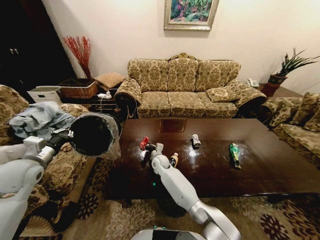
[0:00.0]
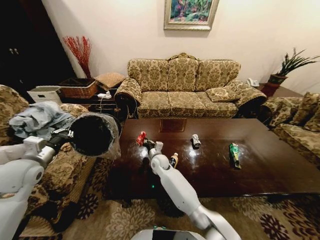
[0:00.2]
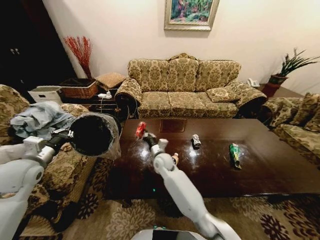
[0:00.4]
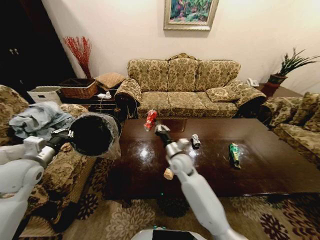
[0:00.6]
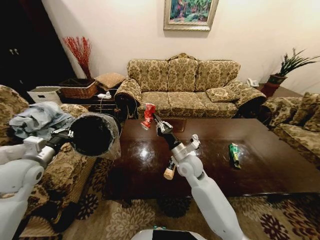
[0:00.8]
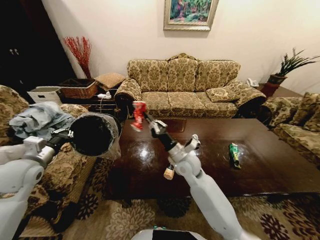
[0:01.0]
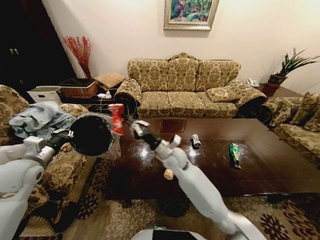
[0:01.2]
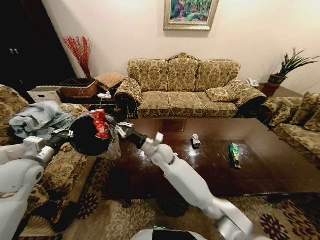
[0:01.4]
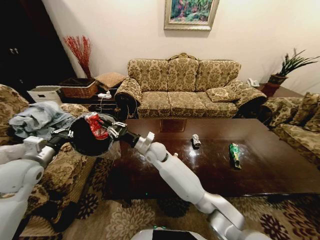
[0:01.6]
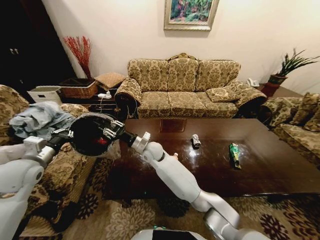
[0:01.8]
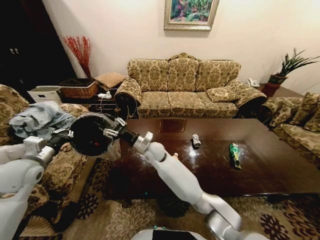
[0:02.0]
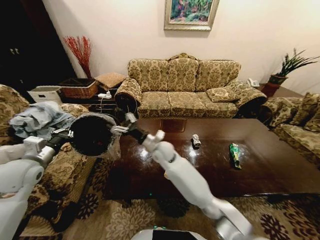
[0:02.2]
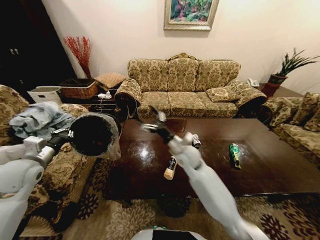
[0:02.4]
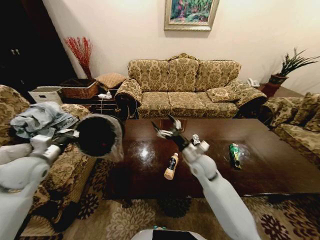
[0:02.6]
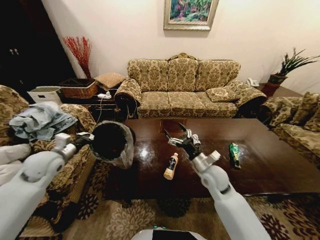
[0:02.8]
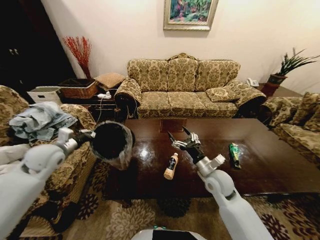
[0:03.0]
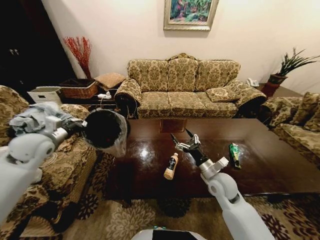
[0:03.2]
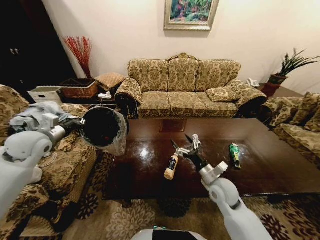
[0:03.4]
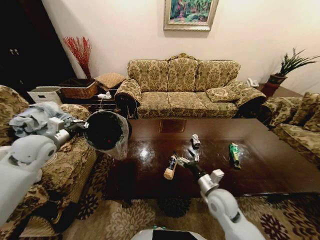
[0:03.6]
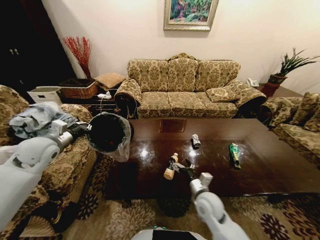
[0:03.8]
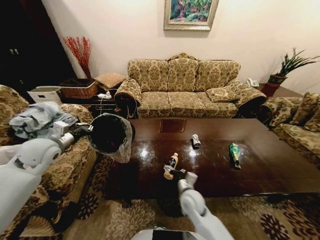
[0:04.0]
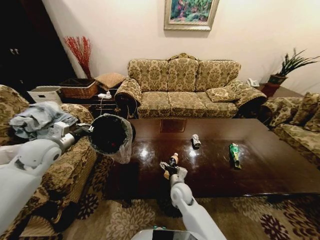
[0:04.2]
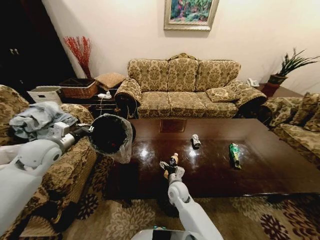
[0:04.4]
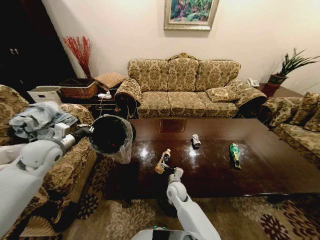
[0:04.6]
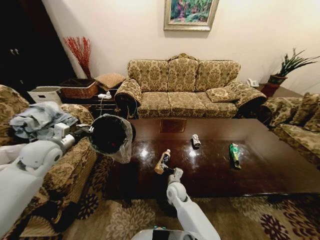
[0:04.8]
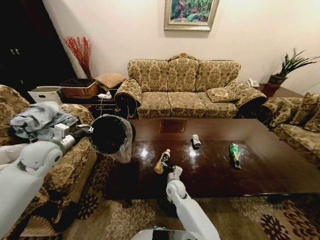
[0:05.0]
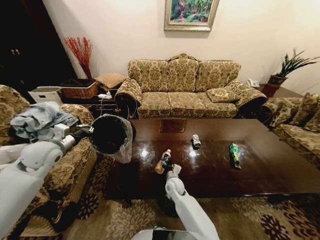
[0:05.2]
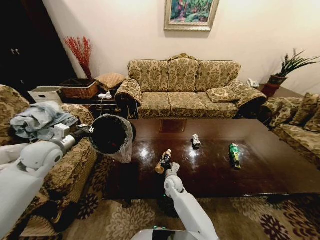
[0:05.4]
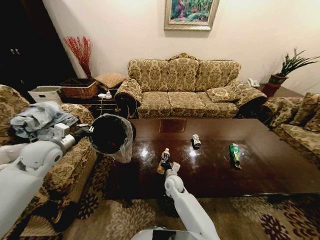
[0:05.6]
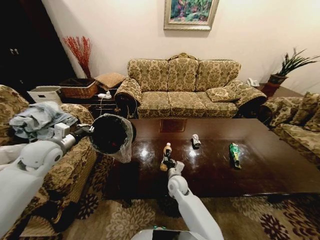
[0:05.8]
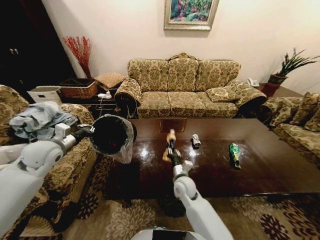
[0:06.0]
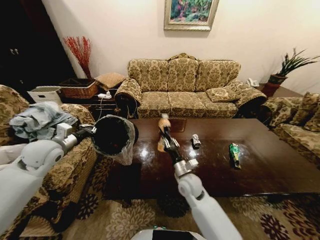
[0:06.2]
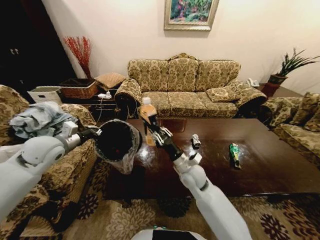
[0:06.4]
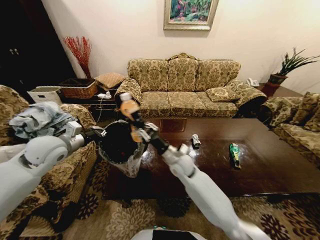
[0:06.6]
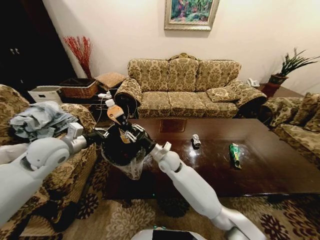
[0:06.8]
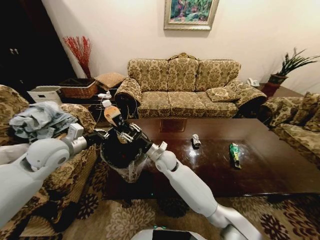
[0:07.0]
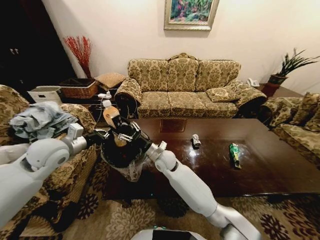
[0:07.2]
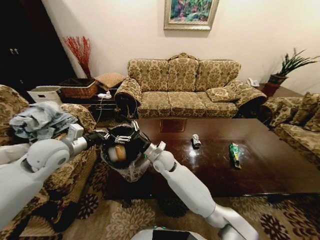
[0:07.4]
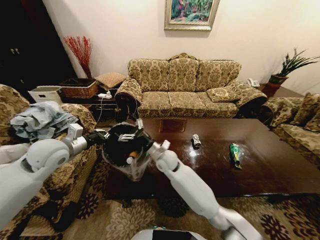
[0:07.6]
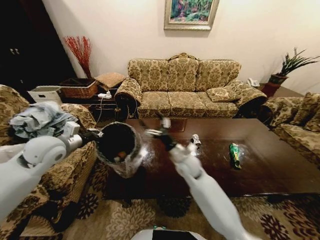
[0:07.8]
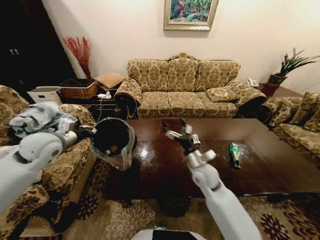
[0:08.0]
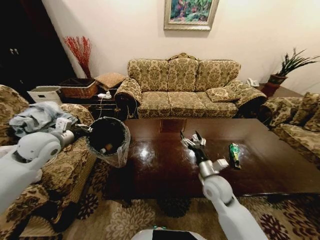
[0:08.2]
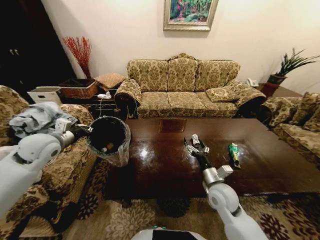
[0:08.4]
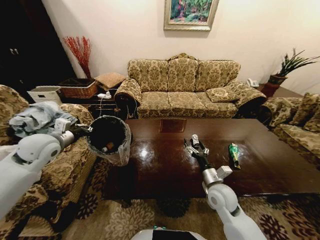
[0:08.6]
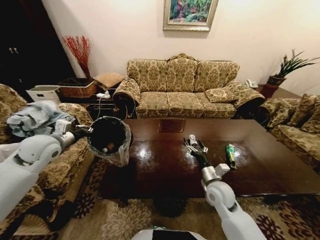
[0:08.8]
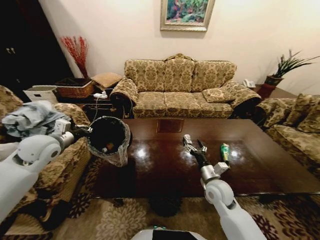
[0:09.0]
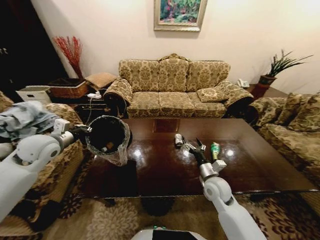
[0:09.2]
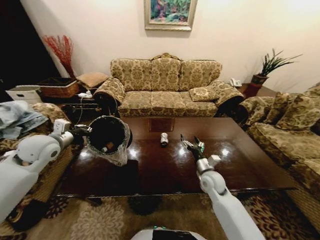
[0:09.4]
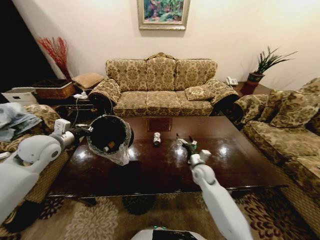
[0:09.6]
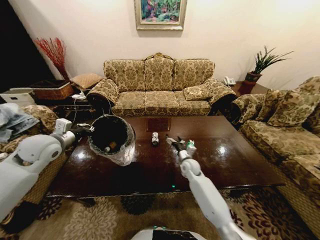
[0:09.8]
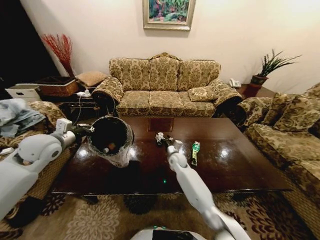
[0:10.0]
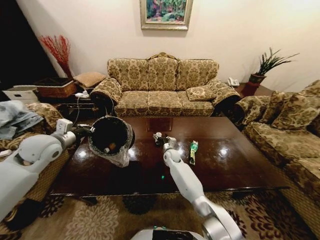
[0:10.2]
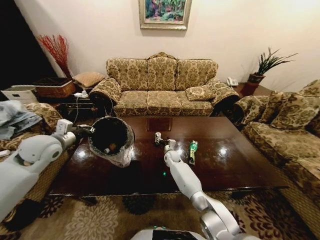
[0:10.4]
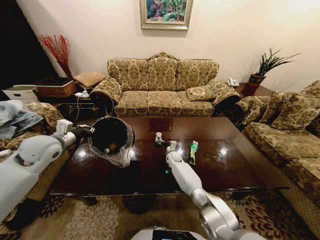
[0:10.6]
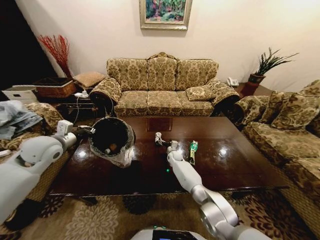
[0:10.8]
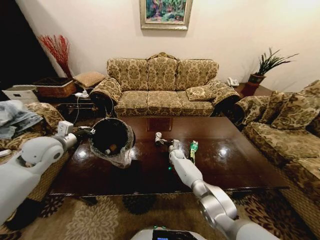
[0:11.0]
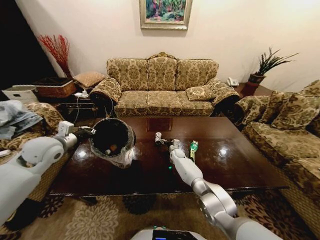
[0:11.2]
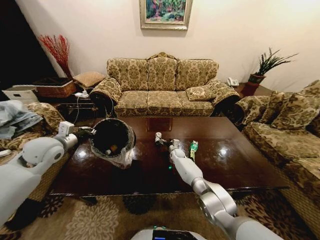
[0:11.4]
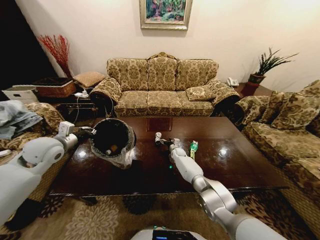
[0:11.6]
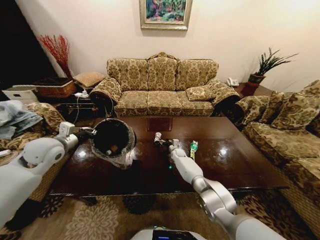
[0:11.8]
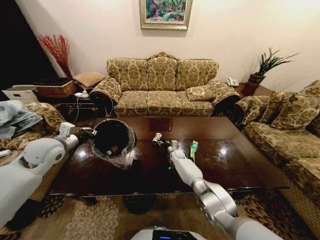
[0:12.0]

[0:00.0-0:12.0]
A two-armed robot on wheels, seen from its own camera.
Task of the whole recording: Move to the front of the table and place the trash on the table into the trash bin.
0:00.0 to 0:01.6: The right gripper goes roughly 15 cm upward.
0:01.6 to 0:03.0: The left gripper shifts roughly 5 cm forward. The right gripper goes roughly 30 cm to the right and backward, and opens its fingers.
0:03.0 to 0:04.4: The right gripper heads downward and to the left, covering roughly 20 cm.
0:04.4 to 0:06.0: The right gripper shifts by approximately 5 cm, and closes.
0:06.0 to 0:07.6: The right gripper is displaced upward, to the left and forward by approximately 15 cm, and opens up; the left gripper moves to the right, about 5 cm.
0:07.6 to 0:09.0: The left gripper shifts roughly 5 cm to the left. The right gripper travels to the right and backward by about 25 cm.
0:09.0 to 0:10.4: The right gripper travels forward, to the left and downward by roughly 30 cm.
0:10.4 to 0:12.0: The right gripper ends up about 5 cm from where it was, and closes.

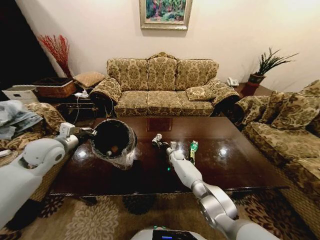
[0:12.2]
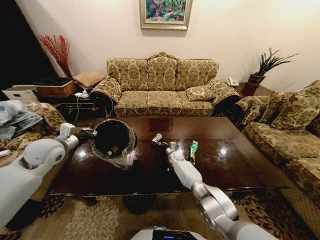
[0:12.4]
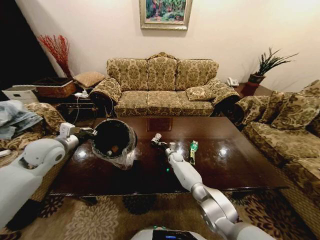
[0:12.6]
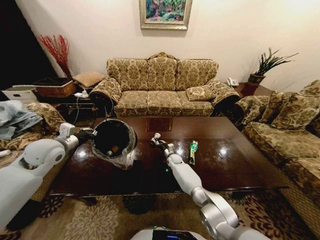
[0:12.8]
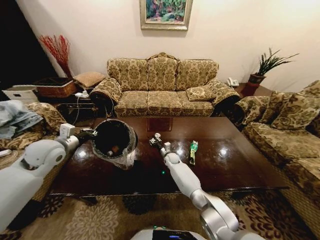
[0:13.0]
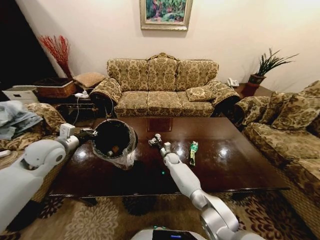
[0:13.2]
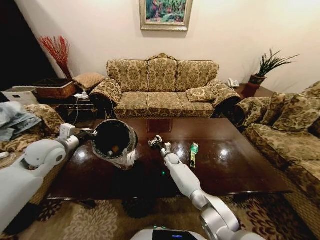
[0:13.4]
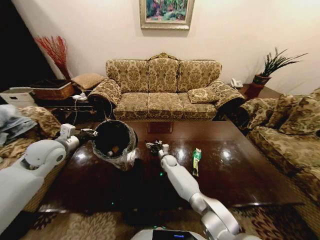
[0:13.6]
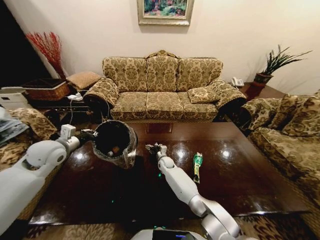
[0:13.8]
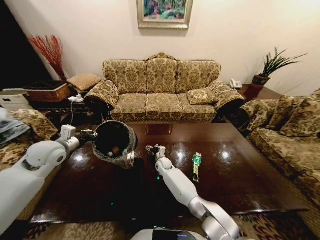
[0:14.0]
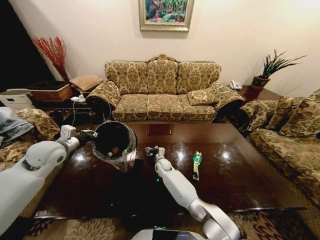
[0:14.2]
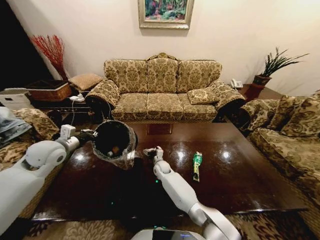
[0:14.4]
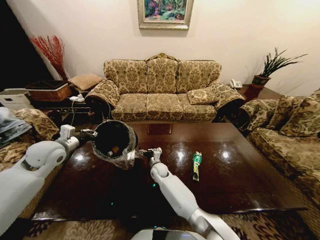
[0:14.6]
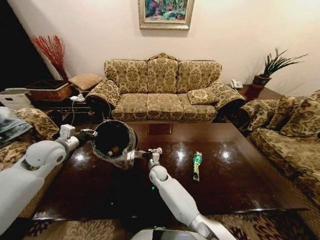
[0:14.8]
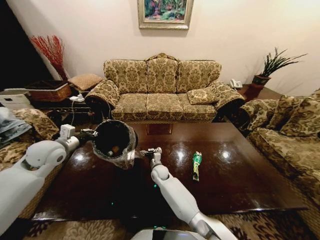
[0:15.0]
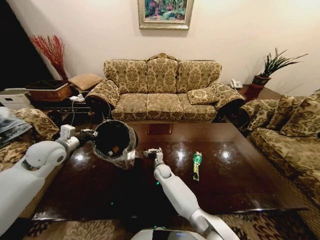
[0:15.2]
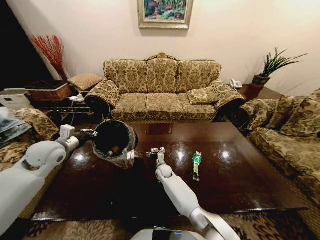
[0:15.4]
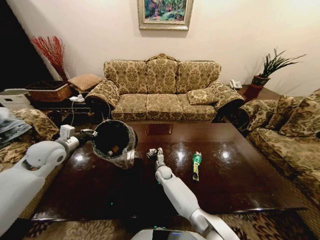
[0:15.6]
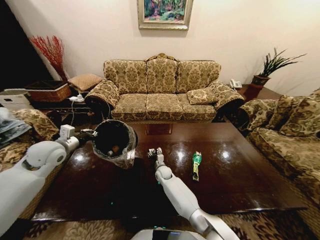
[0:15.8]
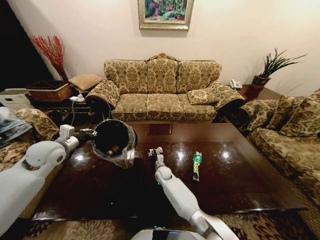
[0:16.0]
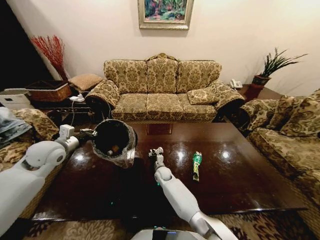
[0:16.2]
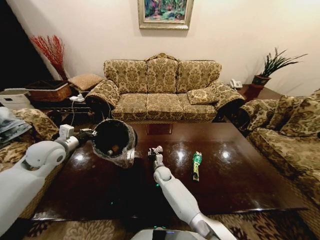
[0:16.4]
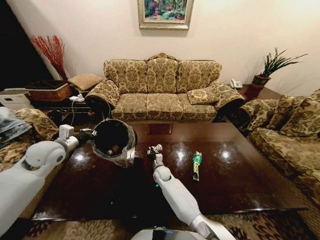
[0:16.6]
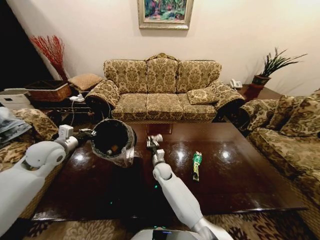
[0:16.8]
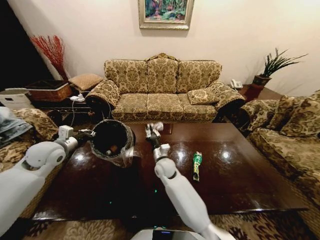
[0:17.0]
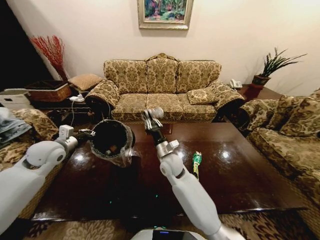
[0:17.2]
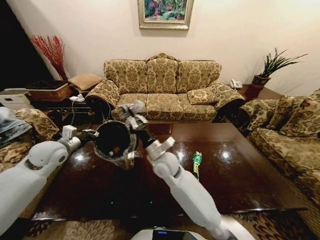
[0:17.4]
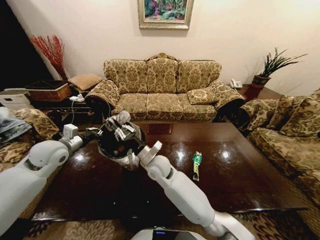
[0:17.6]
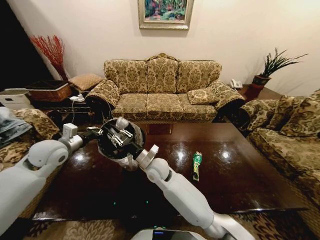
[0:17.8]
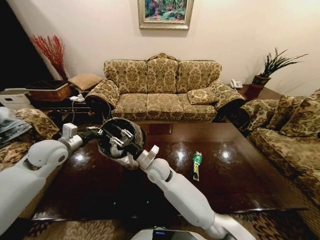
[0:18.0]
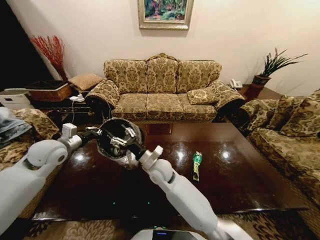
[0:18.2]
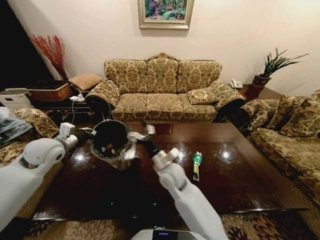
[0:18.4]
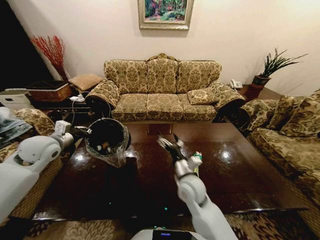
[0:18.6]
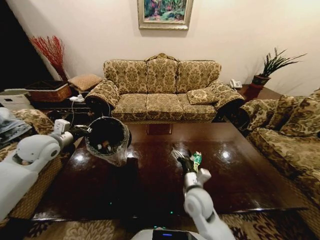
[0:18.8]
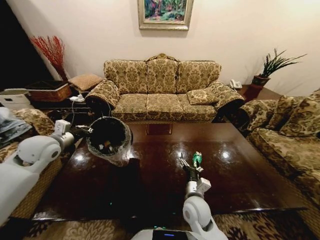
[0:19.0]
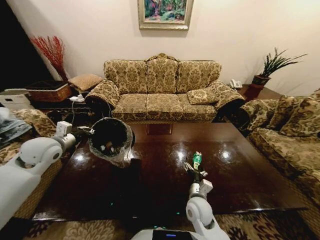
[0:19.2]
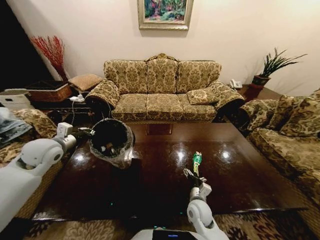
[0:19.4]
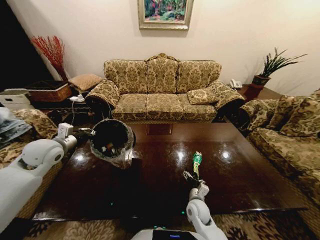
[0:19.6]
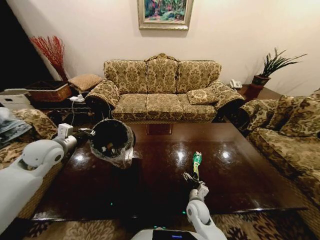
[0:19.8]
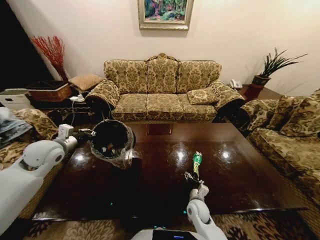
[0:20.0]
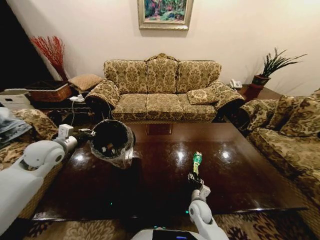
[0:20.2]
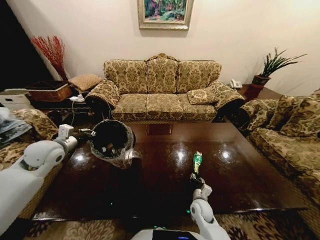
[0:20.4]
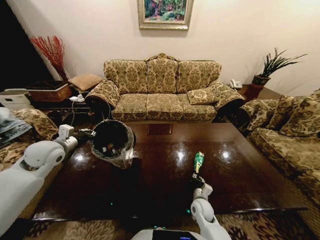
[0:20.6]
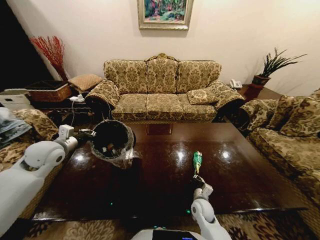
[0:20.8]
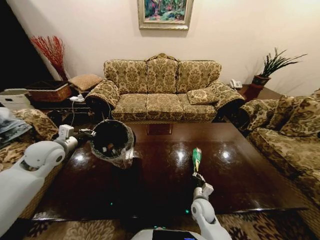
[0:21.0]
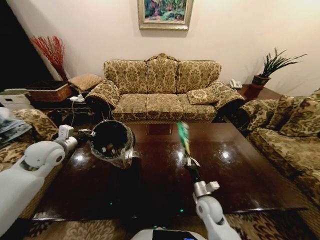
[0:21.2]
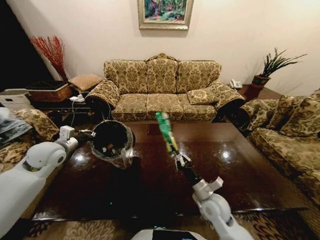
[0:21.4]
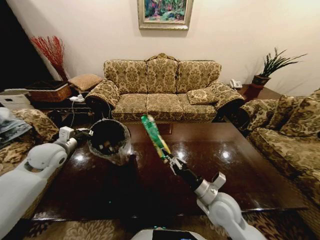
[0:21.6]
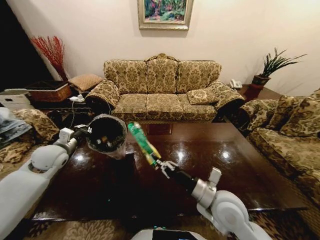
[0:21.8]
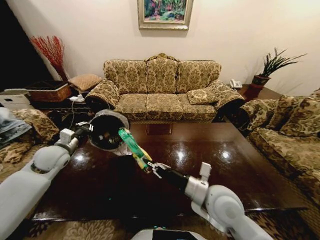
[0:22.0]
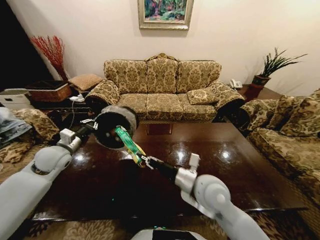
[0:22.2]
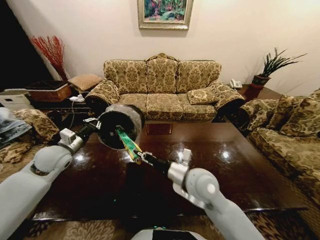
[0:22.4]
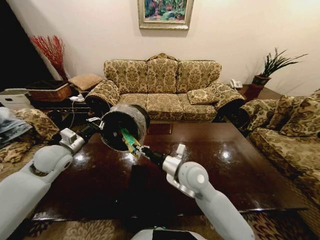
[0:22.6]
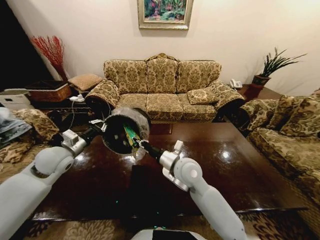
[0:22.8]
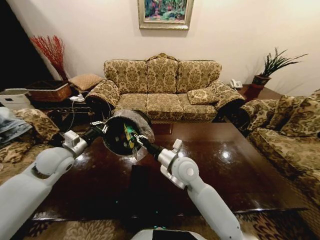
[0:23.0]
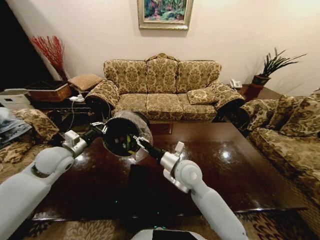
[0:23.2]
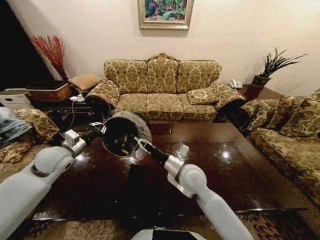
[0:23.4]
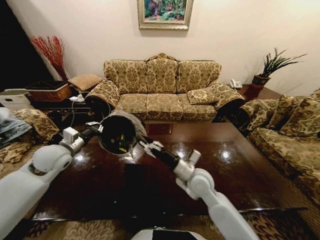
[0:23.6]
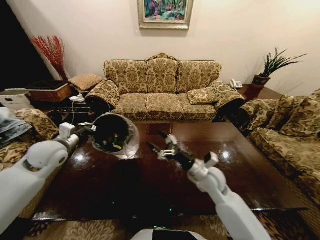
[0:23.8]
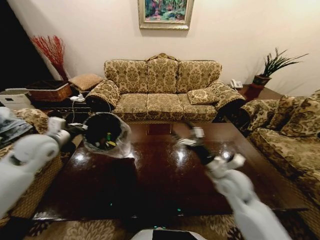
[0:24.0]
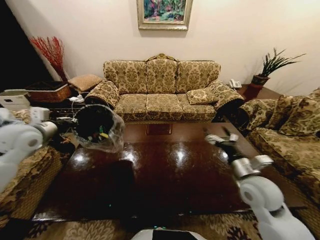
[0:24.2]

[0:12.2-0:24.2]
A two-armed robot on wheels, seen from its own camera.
Task of the whole recording: Move to the front of the table and place the trash on the table into the trash bin.
0:12.2 to 0:13.8: The right gripper heads to the left and backward, covering approximately 10 cm, and opens up.
0:13.8 to 0:15.2: The right gripper shifts roughly 5 cm backward.
0:15.2 to 0:16.6: The right gripper closes.
0:16.6 to 0:18.2: The right gripper goes about 20 cm upward, and opens.
0:18.2 to 0:19.8: The right gripper travels downward, to the right and backward by some 30 cm.
0:19.8 to 0:21.2: The right gripper travels upward by about 5 cm, and closes its fingers.
0:21.2 to 0:22.6: The right gripper is displaced upward and to the left by some 25 cm.
0:22.6 to 0:24.2: The right gripper goes approximately 20 cm to the right, and opens its fingers, while the left gripper heads upward and to the left, covering some 10 cm.
